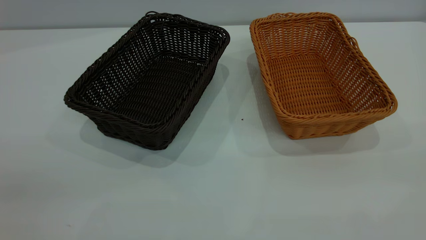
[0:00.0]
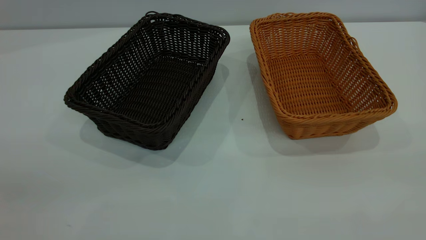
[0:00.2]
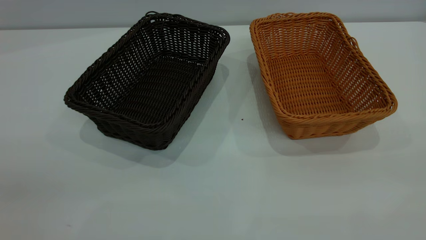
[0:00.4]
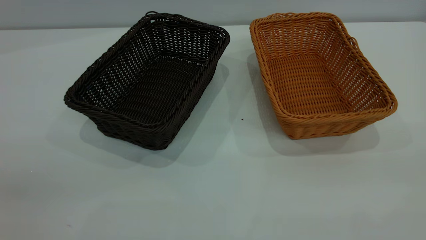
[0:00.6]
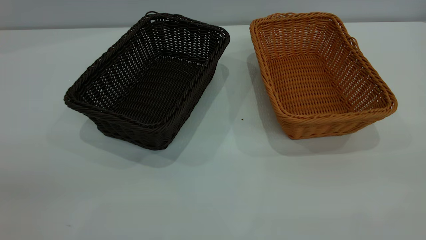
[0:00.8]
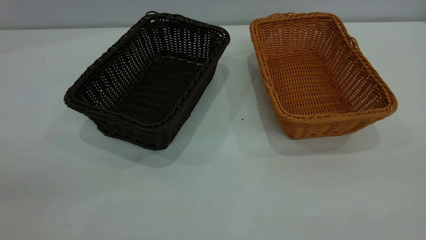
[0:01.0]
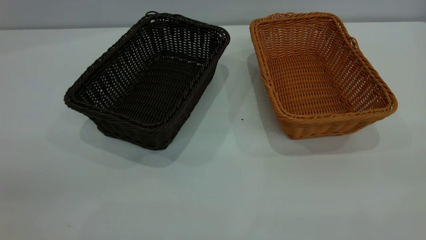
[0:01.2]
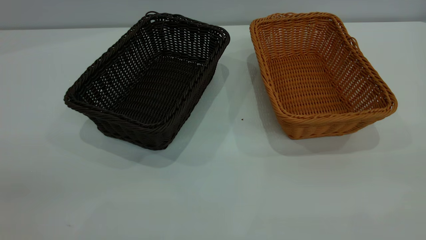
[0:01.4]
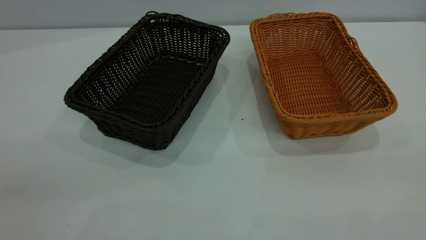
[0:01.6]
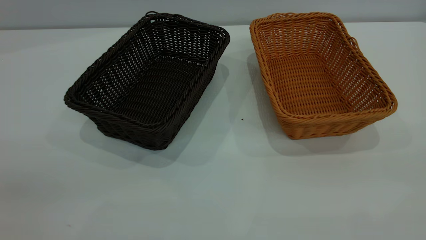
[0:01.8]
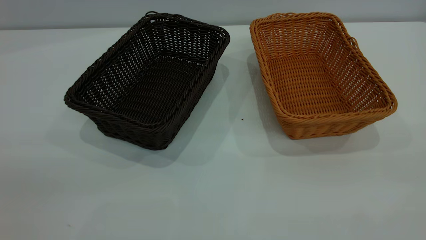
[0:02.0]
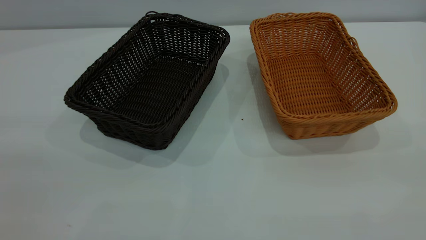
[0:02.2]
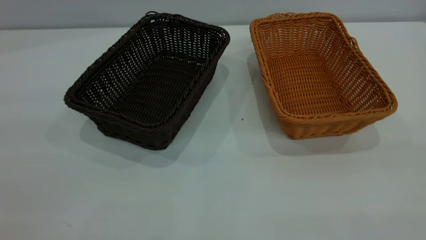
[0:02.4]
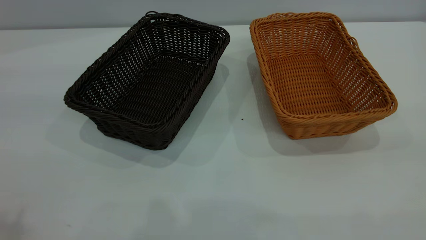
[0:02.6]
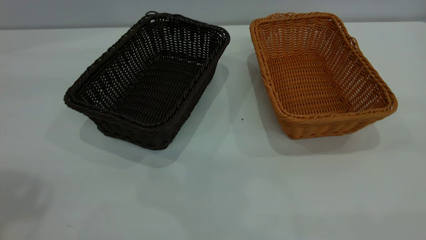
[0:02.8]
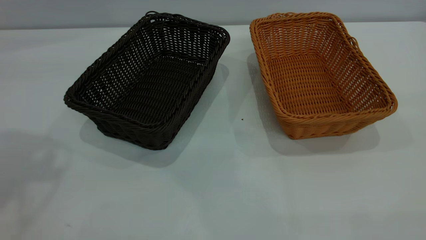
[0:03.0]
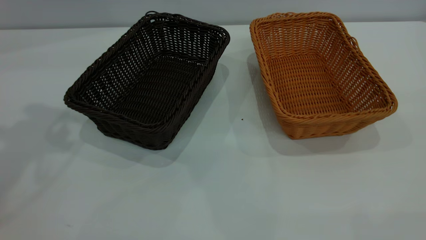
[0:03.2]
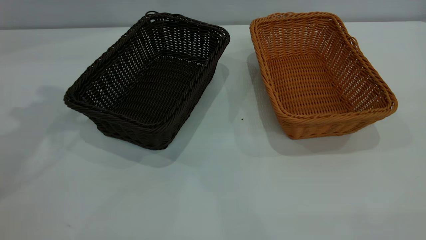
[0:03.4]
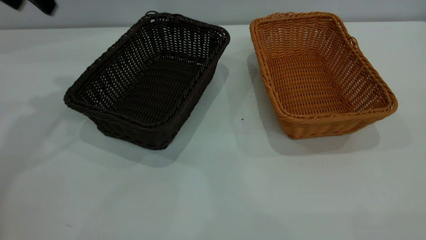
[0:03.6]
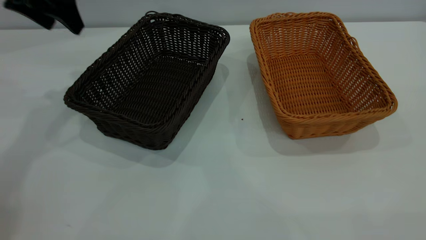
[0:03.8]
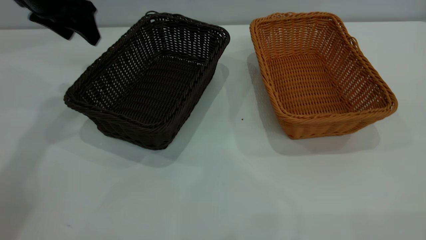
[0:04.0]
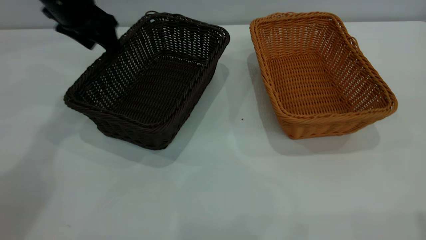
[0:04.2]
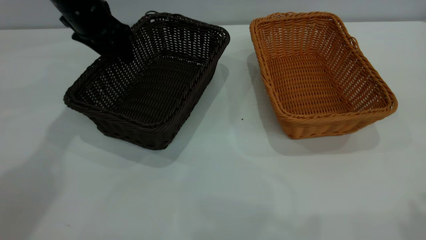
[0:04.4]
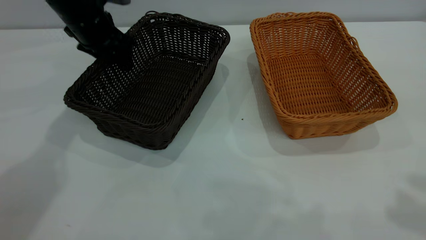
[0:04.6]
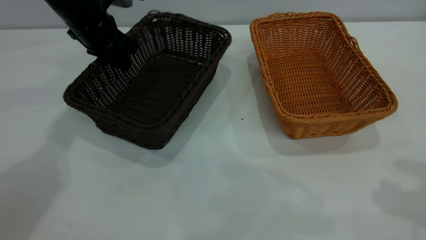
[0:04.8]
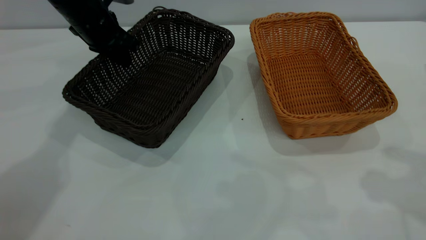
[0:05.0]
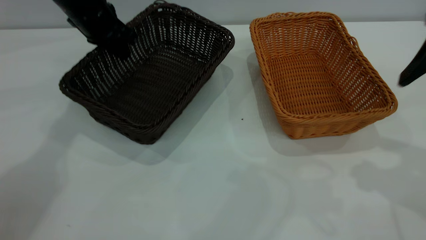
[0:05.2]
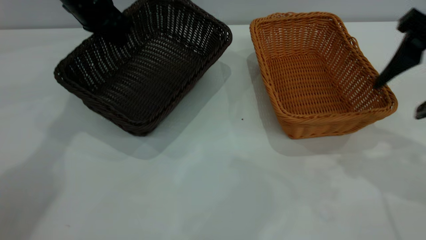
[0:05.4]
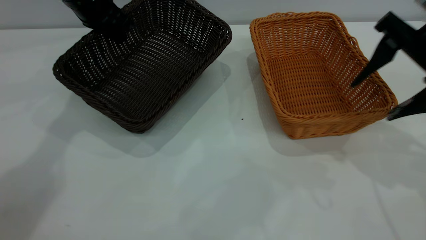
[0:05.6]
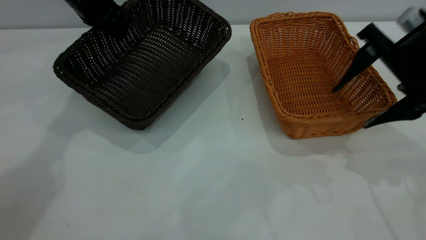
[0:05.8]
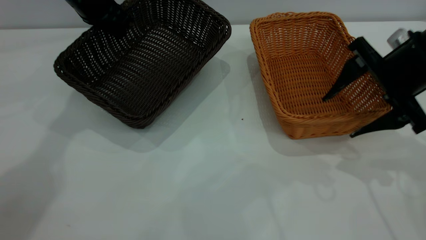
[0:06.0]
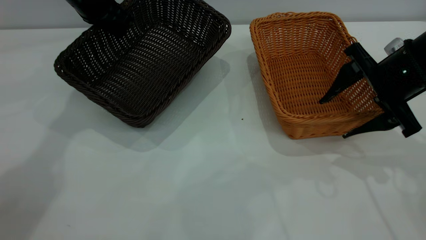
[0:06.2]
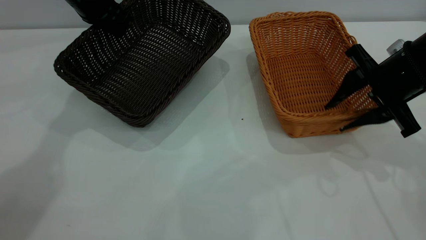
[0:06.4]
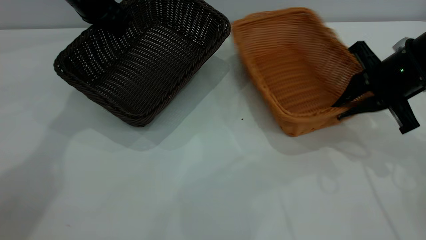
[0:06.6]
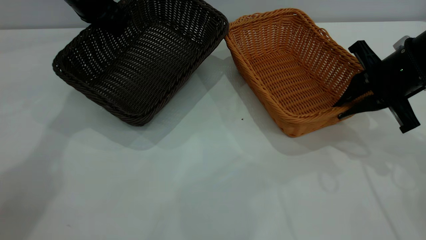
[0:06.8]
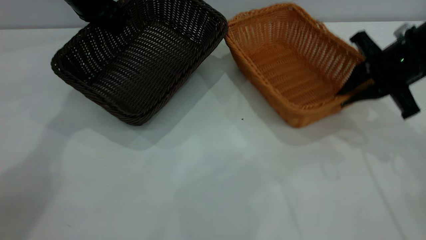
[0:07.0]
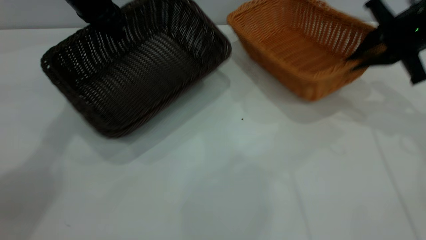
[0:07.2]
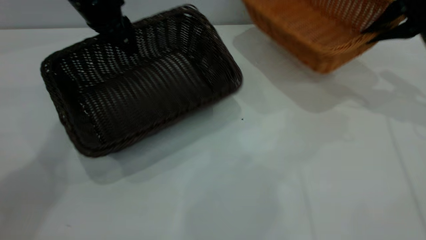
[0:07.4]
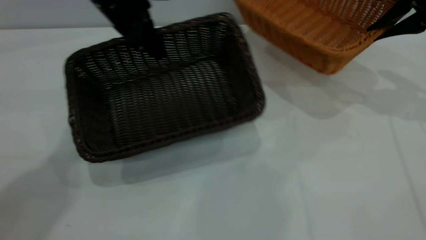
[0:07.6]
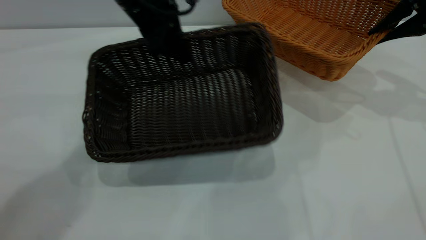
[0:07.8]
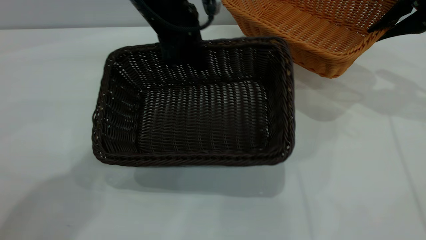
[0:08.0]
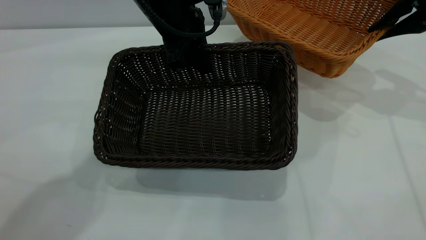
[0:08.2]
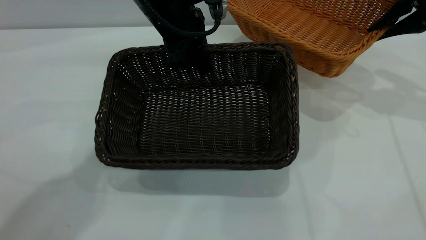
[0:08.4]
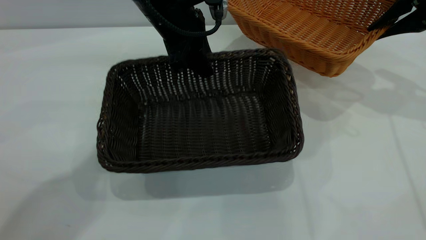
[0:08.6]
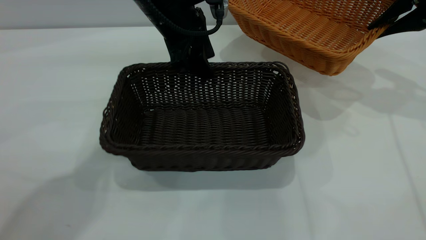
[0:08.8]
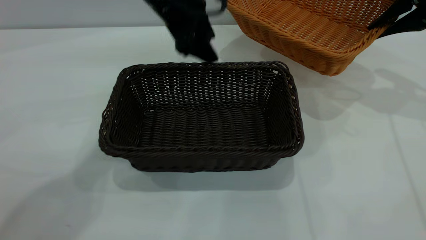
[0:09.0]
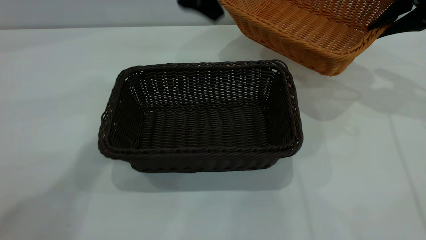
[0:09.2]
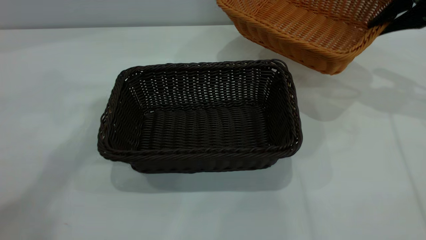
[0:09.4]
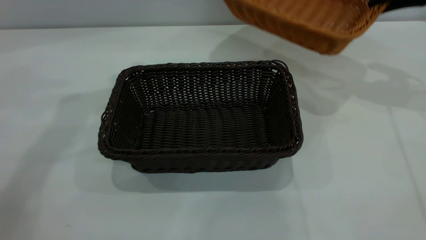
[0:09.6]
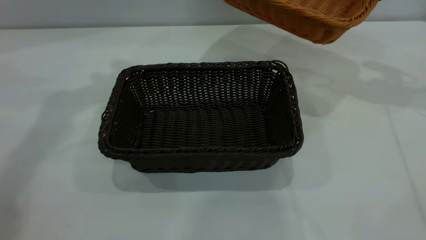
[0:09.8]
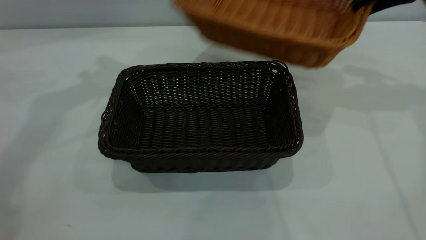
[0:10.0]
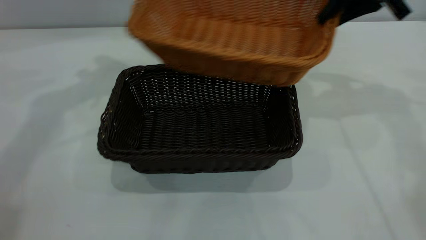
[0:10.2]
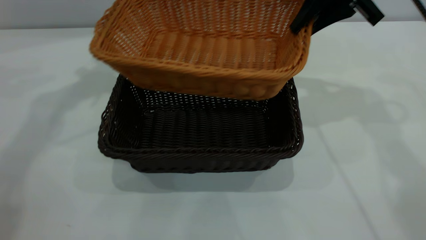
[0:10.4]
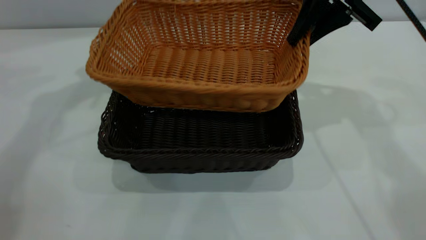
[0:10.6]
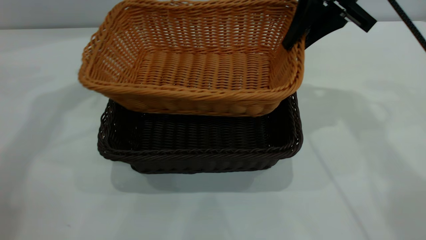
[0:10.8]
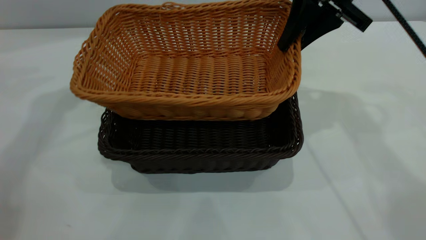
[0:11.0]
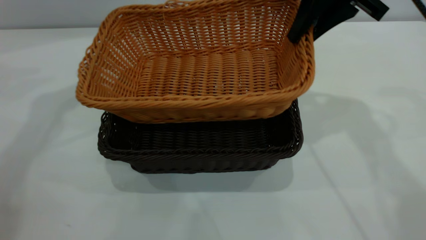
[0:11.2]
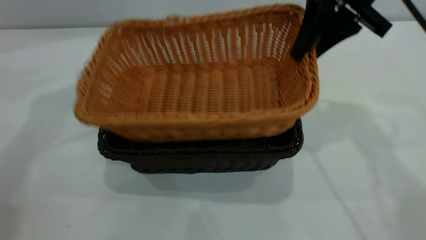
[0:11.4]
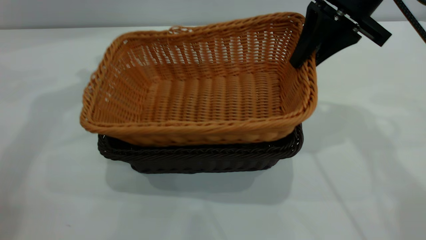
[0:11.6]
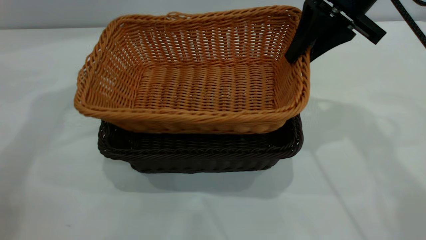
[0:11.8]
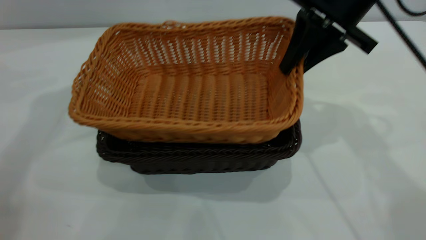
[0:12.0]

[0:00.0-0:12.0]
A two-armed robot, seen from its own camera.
Task of the whole recording: the left gripper grasp the black basket and place it in the center of the table, the right gripper grasp the brown basket and place it inside the black one.
Step, 0:00.0 to 0:07.0: Pick up the light basket with the right gripper.
Step, 0:07.4 to 0:08.8: Move the dark basket to the center of view.
0:00.0 to 0:01.6: Neither gripper changes place.
0:03.0 to 0:04.4: The left gripper moves downward and forward, about 30 cm.
0:04.4 to 0:06.0: The right gripper heads downward and forward, covering some 25 cm. Meanwhile the left gripper closes.
0:06.0 to 0:07.6: The right gripper moves forward, to the right and upward, some 15 cm, and closes. Meanwhile the left gripper is displaced to the right by roughly 5 cm.
0:07.6 to 0:09.0: The left gripper shifts some 5 cm to the right, and opens up.
0:09.0 to 0:10.4: The right gripper goes some 15 cm to the left; the left gripper is displaced to the left and upward by roughly 20 cm.
0:10.4 to 0:12.0: The right gripper ends up roughly 5 cm from where it was.

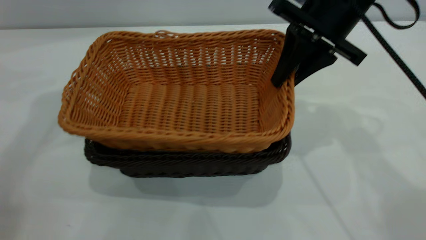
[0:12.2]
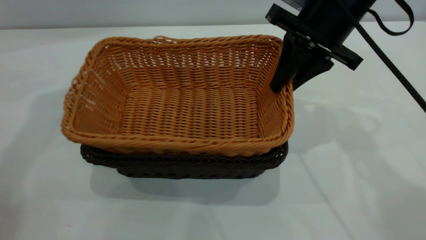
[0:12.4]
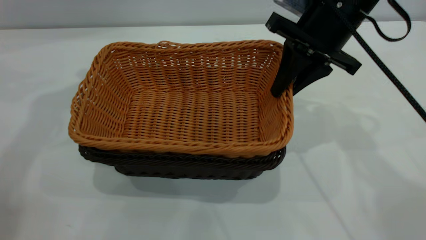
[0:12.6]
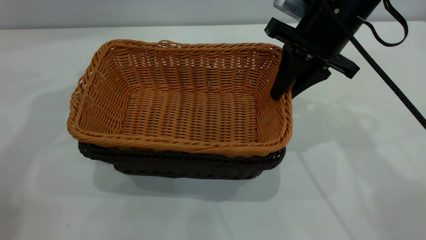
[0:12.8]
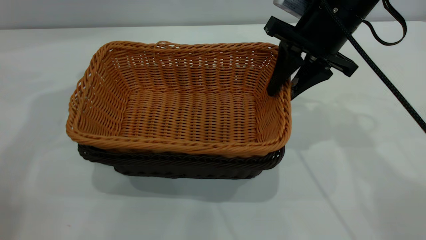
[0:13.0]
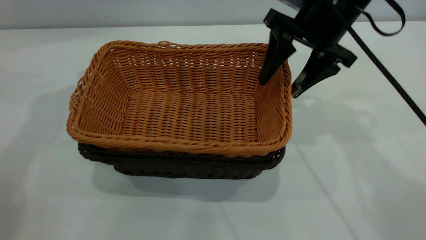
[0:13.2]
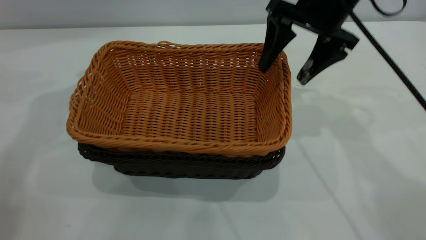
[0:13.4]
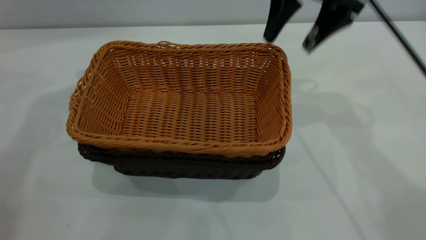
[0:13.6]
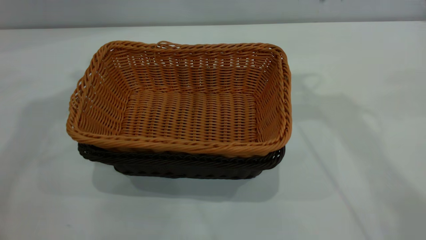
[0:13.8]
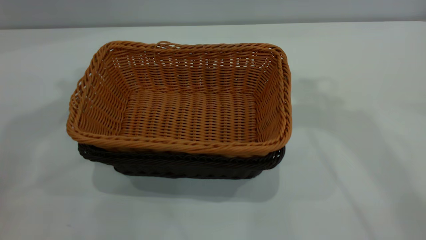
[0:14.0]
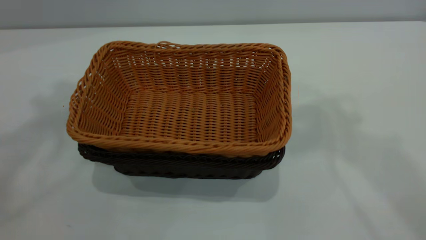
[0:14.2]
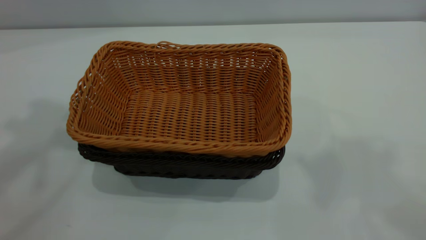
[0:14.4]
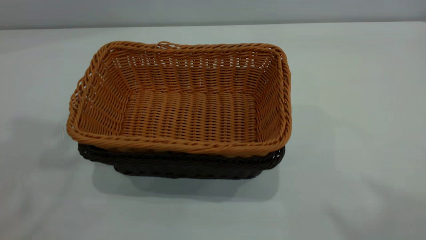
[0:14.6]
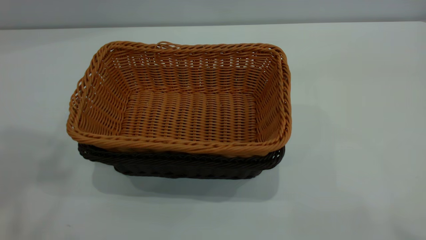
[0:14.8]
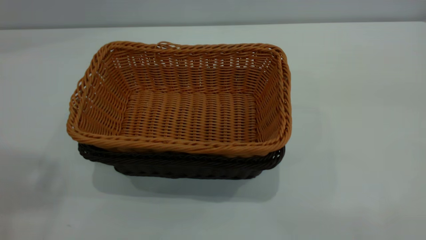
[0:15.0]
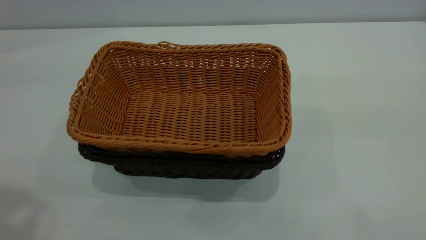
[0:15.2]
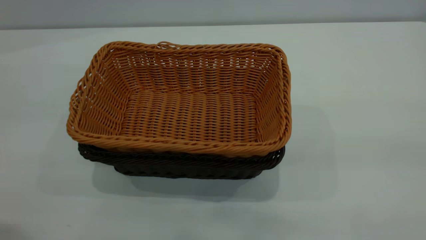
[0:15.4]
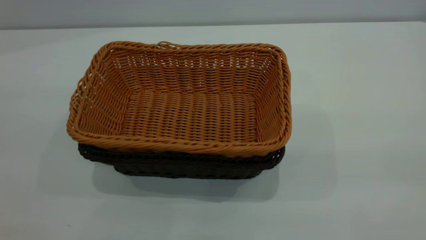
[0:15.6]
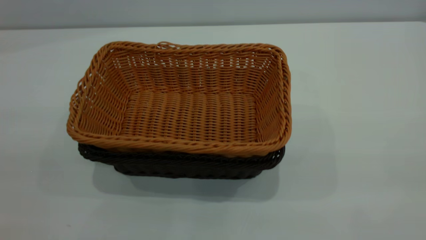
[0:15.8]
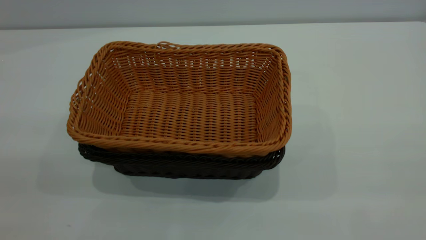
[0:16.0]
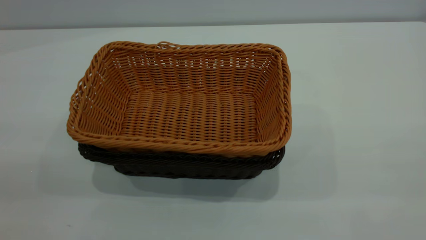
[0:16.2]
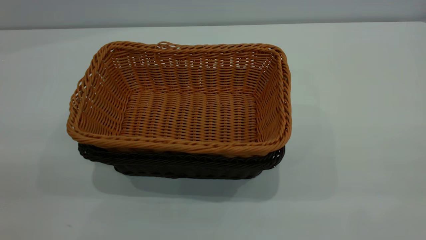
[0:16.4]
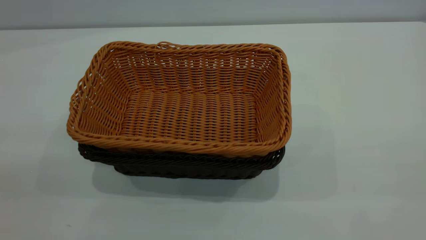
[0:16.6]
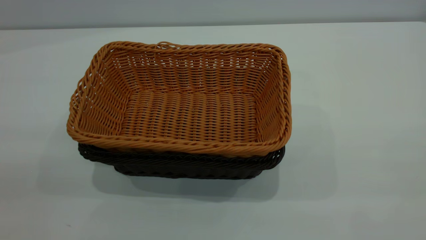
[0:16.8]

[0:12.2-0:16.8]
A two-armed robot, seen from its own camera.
Task of the whole recording: the left gripper grasp the black basket and place it in the center of the table, the right gripper grasp the brown basket and place it inside the black one.
0:12.2 to 0:13.8: The left gripper travels upward by roughly 5 cm, while the right gripper shifts about 10 cm upward, and opens.
0:13.8 to 0:15.2: Both grippers move backward, roughly 35 cm.
